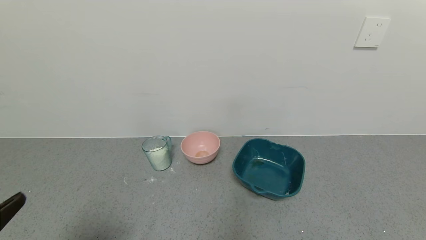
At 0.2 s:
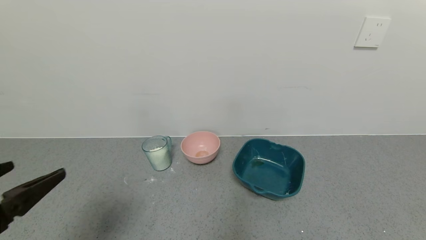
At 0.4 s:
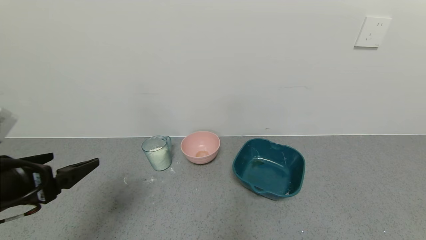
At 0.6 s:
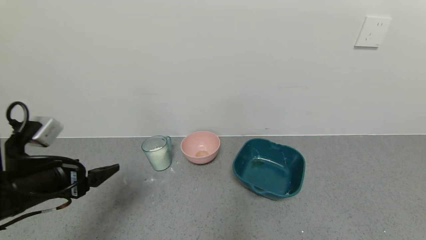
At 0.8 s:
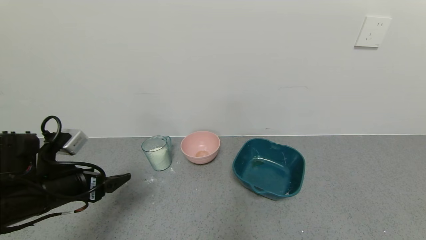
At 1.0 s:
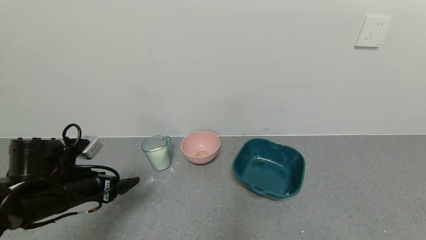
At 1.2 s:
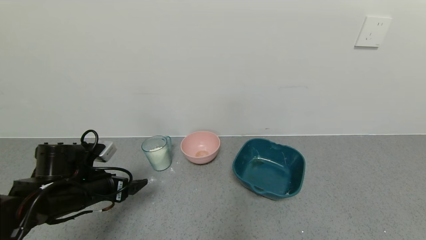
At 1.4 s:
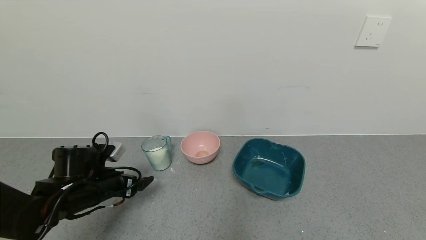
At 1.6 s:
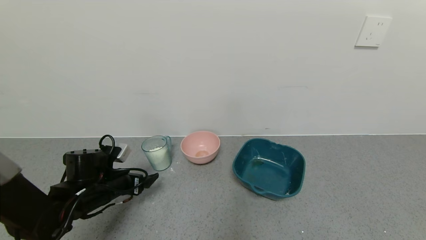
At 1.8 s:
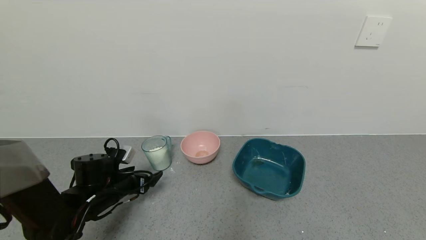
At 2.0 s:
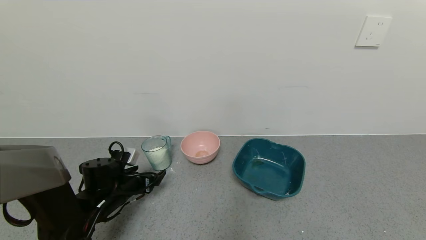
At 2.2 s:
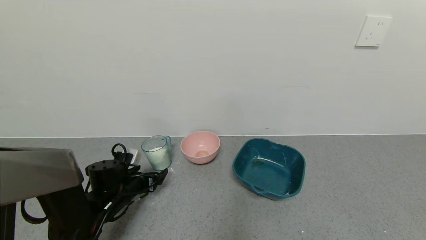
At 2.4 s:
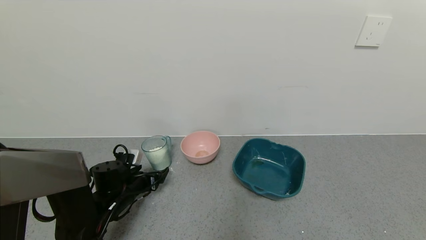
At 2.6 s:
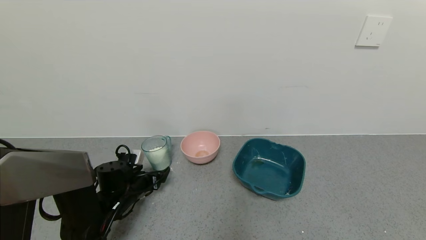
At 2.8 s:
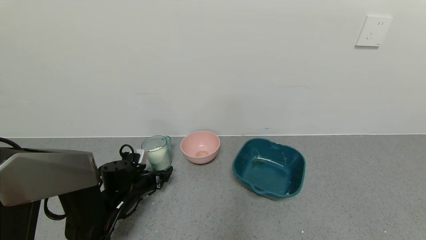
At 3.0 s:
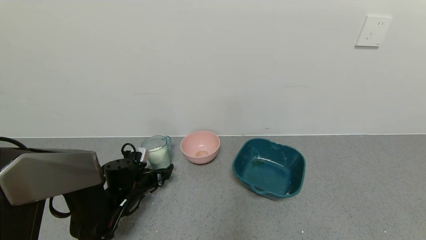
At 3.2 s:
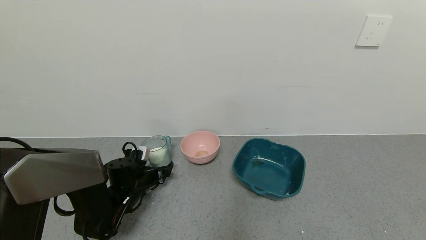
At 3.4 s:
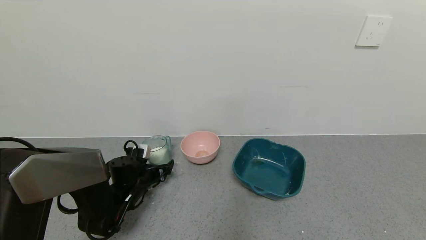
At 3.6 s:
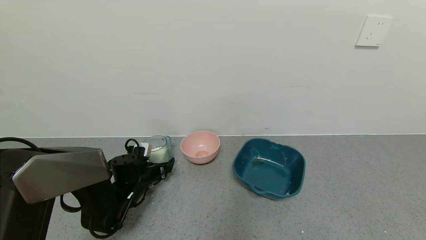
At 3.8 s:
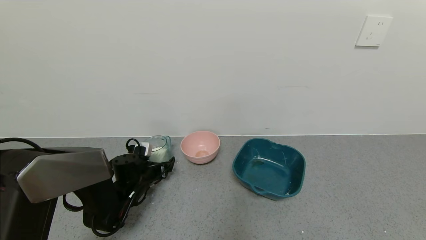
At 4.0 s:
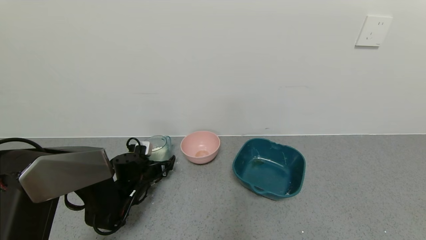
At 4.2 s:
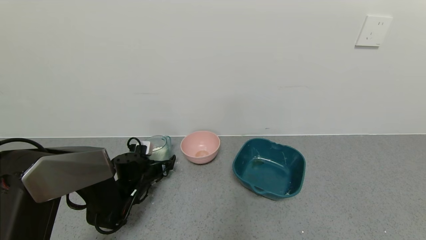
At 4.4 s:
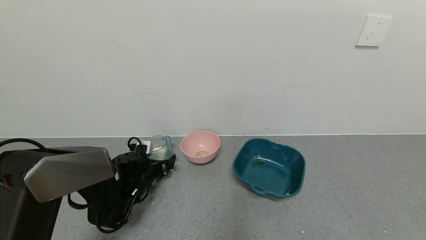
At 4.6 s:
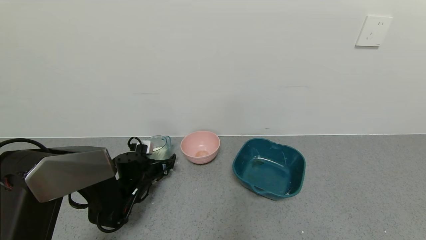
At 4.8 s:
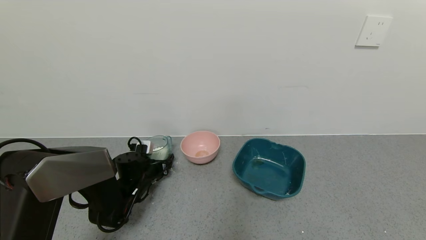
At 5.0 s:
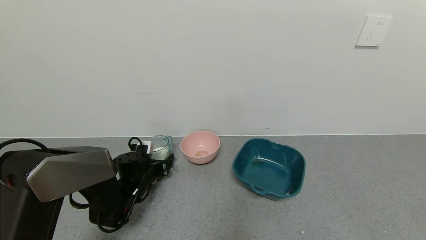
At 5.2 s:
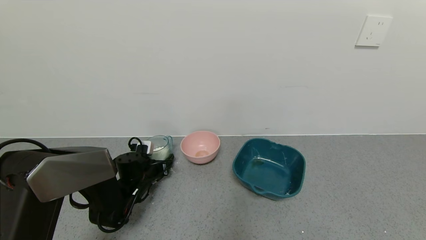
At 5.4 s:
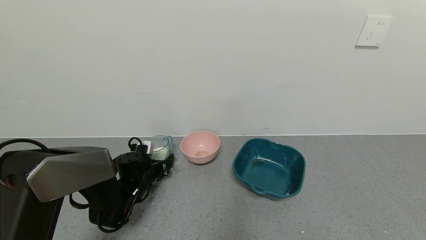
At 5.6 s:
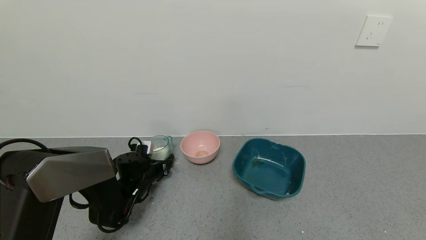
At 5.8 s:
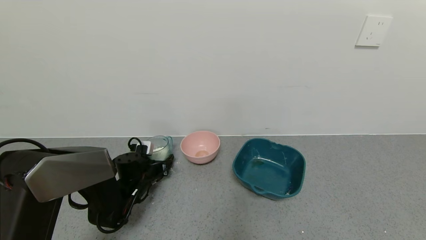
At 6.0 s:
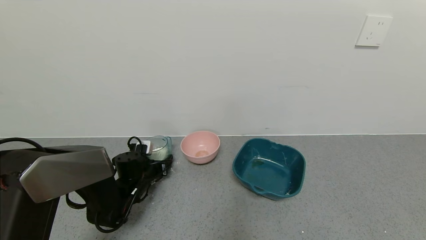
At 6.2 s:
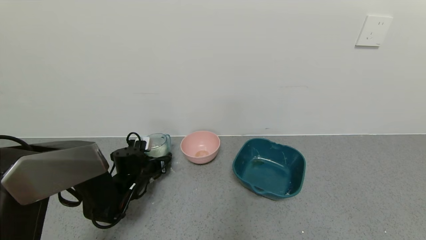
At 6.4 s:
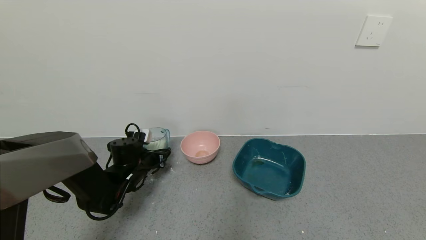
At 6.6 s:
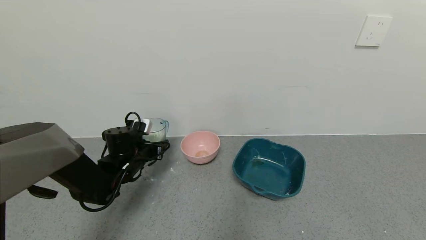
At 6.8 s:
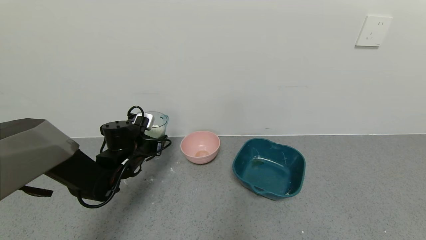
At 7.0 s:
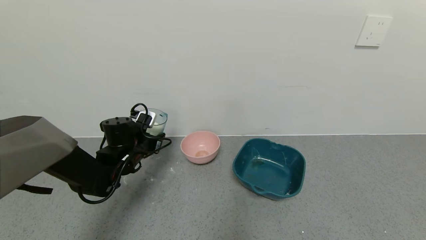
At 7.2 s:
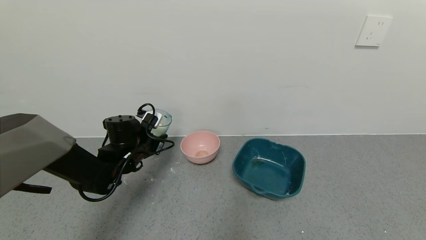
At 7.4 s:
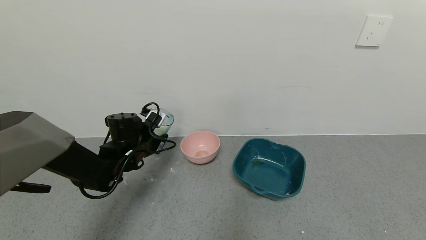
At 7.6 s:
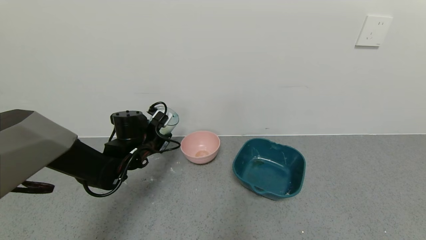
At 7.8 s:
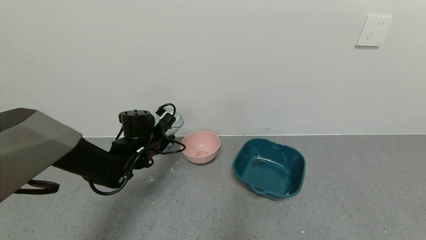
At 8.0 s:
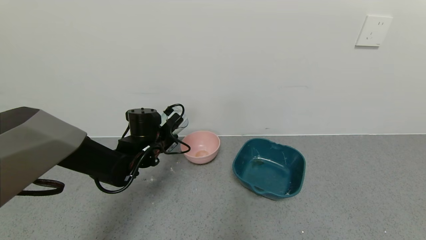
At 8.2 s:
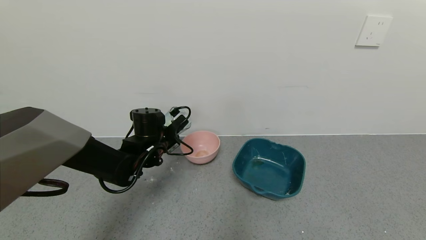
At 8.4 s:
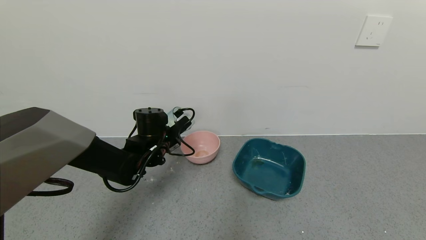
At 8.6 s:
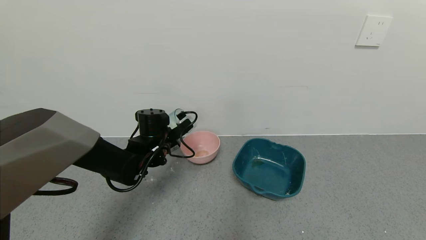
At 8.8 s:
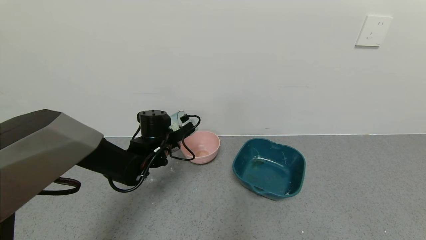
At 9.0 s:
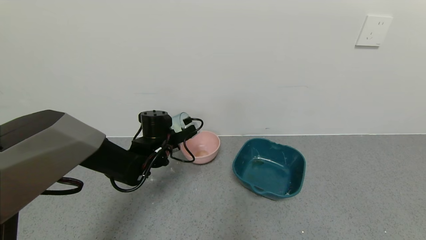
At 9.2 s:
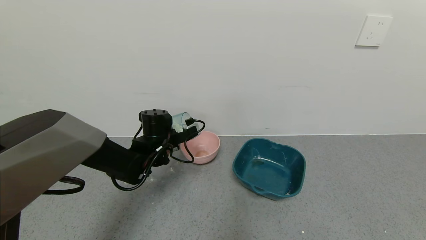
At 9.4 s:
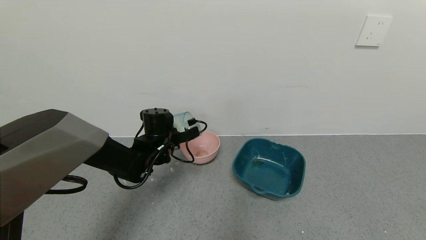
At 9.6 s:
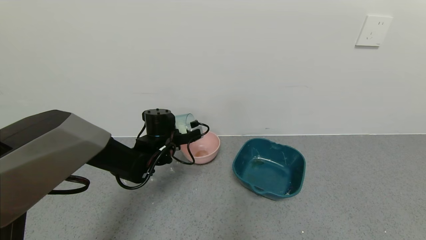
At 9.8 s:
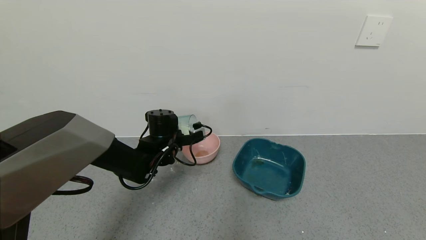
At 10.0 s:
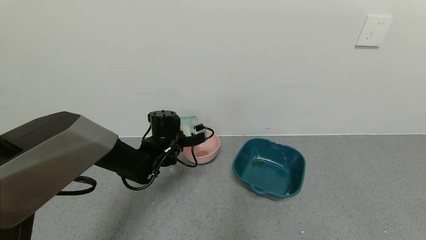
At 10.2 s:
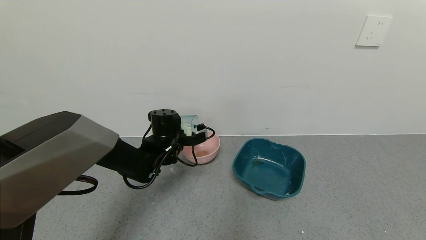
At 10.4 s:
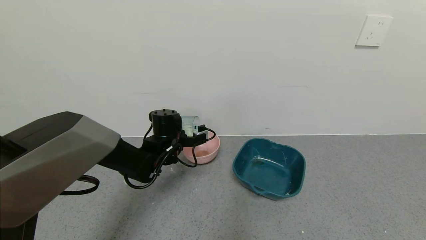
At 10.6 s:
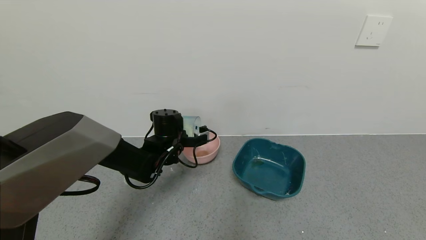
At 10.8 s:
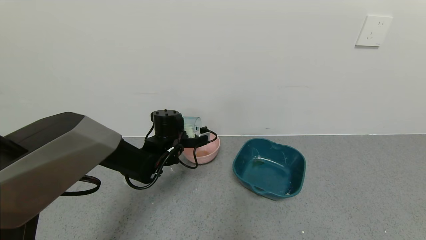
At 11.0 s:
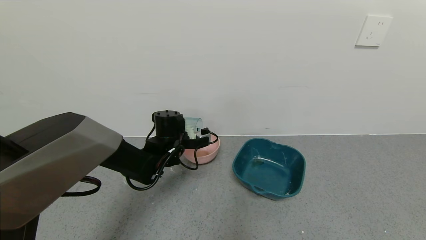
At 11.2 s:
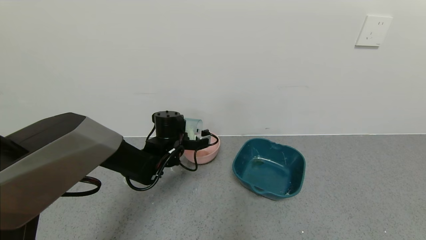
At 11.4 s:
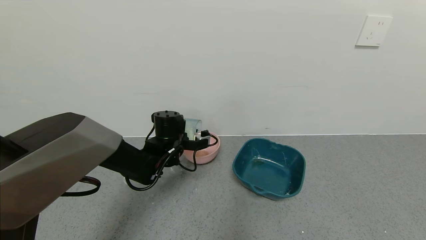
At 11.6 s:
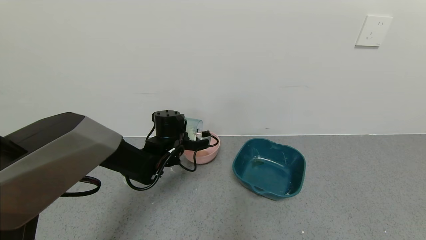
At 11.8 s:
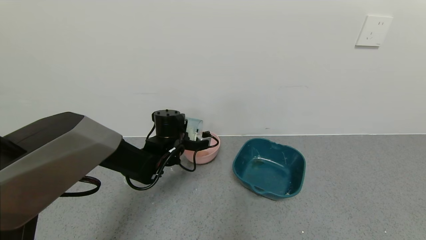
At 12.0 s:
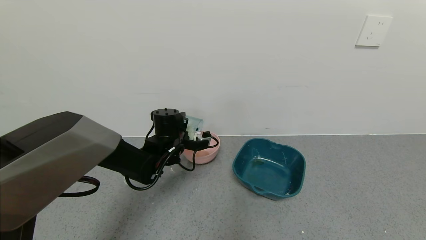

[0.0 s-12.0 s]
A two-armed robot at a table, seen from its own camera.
Task of the whole recording: use a gripper to pick up the cup and pour the powder into a bowl or tray.
Step, 0.0 to 5.0 s: Grasp the glass of powder with the left gripper.
0.0 to 1.6 s: The left gripper is displaced forward and downward by about 30 cm.
1.6 to 3.0 s: The left gripper is displaced downward and forward by roughly 10 cm.
3.0 to 4.4 s: The grippers stay close to where they were, moving slightly.
4.4 to 6.0 s: The left gripper closes its fingers.
6.0 to 7.6 s: The left gripper shifts roughly 10 cm upward.
10.4 to 12.0 s: The grippers stay close to where they were, moving slightly.

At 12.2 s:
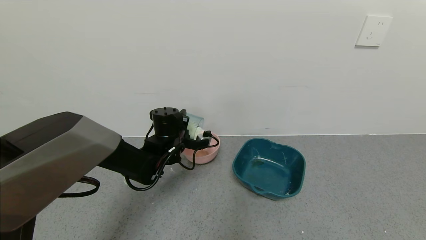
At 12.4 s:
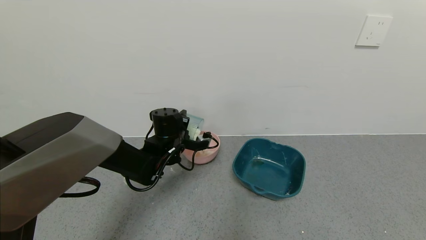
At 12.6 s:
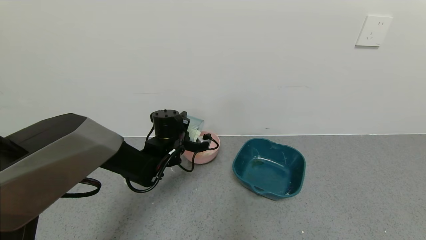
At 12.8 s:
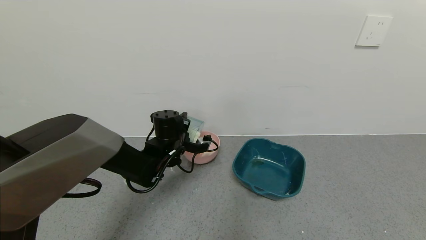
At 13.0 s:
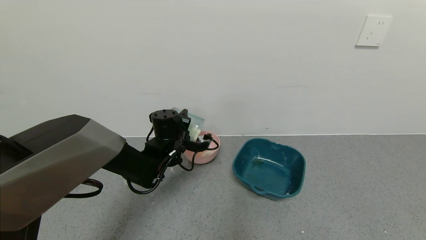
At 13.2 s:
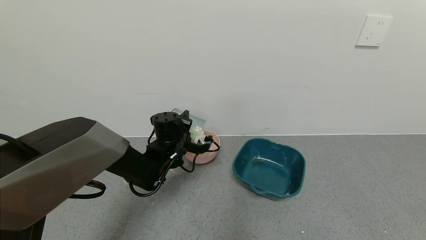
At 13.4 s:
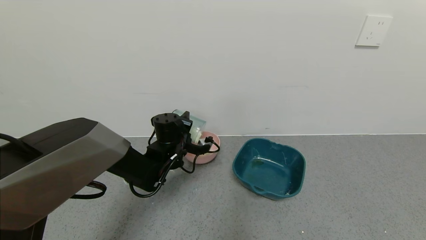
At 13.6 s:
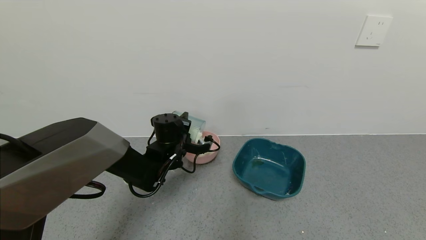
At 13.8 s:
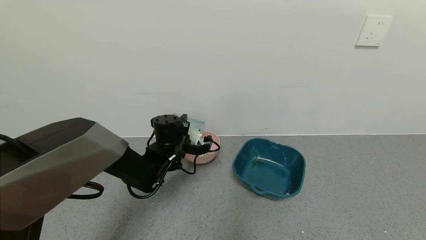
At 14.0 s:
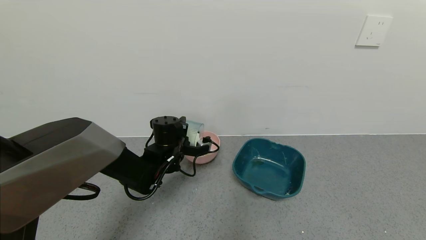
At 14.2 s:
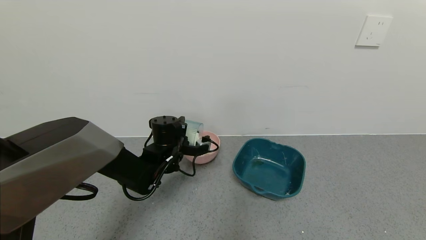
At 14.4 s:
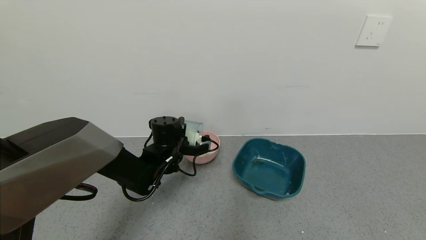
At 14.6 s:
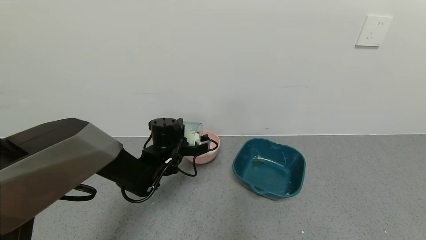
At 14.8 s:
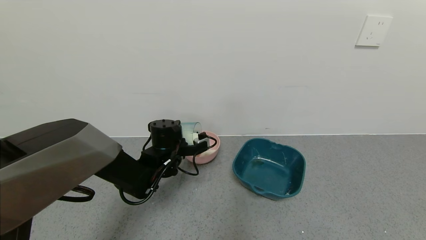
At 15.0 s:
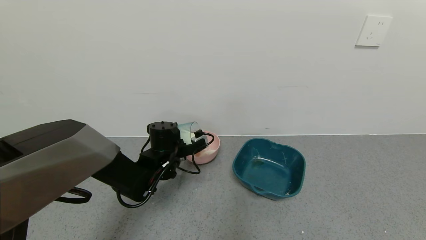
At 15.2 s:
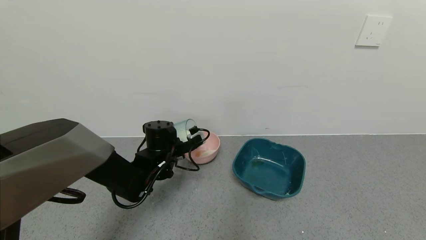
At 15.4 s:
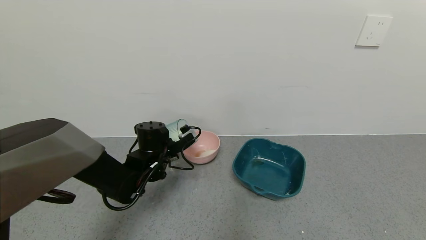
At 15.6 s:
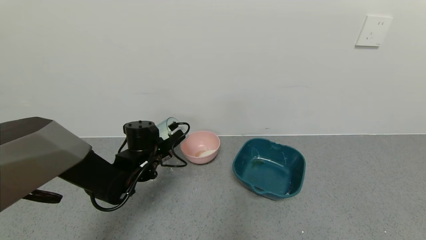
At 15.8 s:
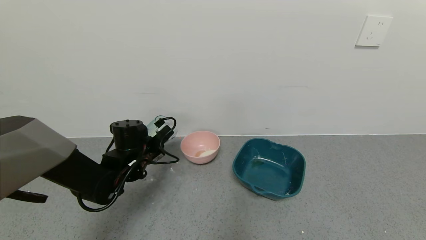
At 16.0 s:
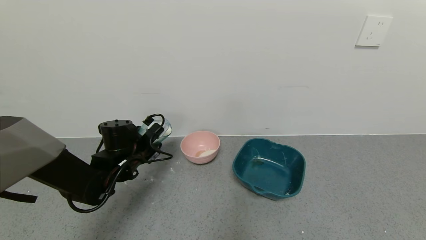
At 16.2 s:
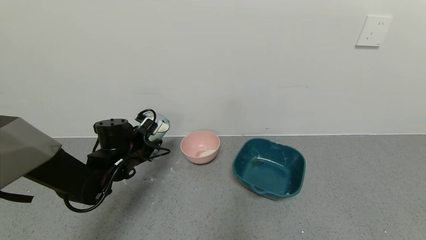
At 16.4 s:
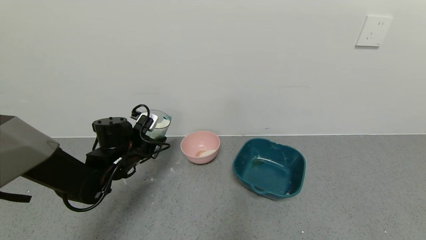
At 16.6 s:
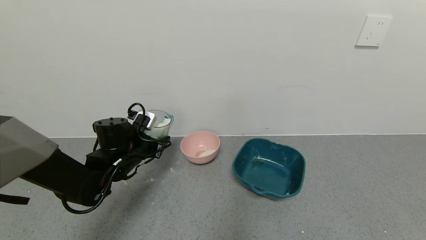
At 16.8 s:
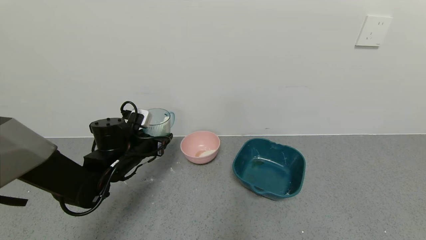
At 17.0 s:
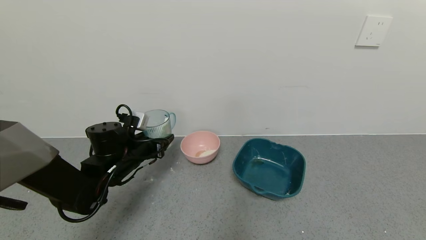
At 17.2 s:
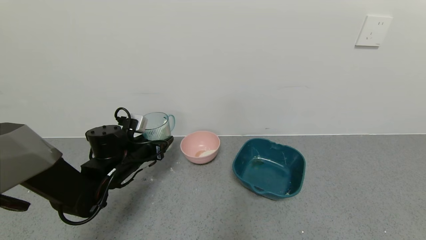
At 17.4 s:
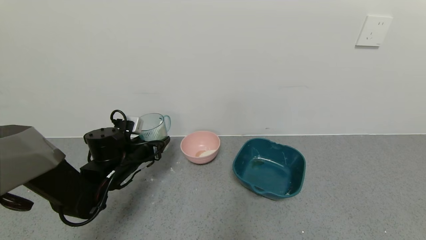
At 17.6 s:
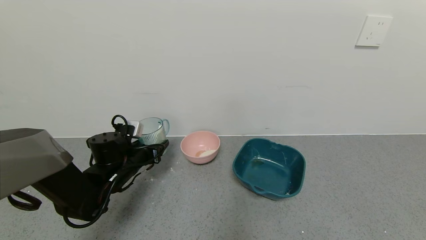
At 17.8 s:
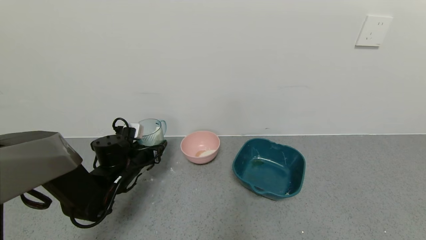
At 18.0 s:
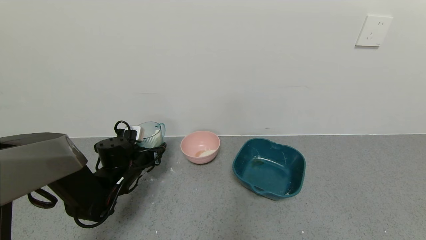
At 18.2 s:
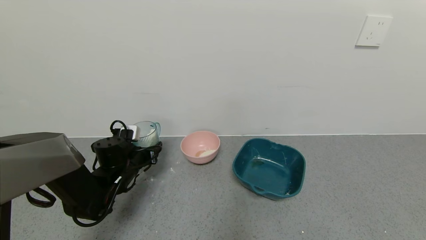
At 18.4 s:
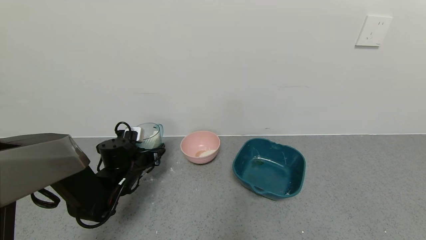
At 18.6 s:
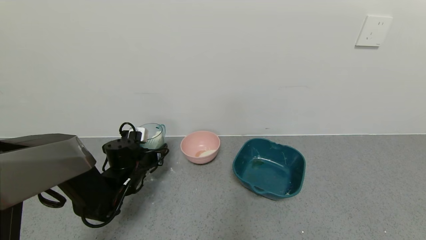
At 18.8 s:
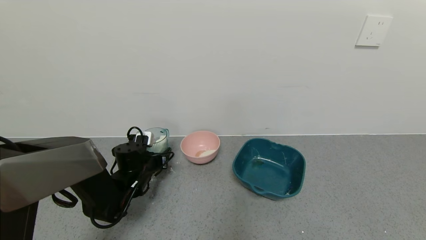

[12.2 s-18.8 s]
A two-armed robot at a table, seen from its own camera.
Task of the whole recording: use a gripper to pick up the cup and pour the powder into a bowl or tray.
Step, 12.2 to 15.2 s: Pour the powder into the pink bowl with the left gripper.
12.2 to 13.8 s: The grippers move only a little.
15.4 to 17.2 s: The left gripper goes some 5 cm to the left.
17.2 to 18.8 s: The left gripper is displaced downward by roughly 5 cm.
